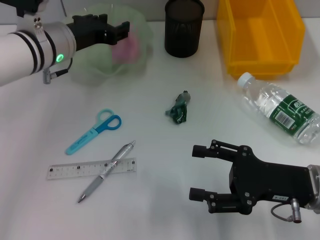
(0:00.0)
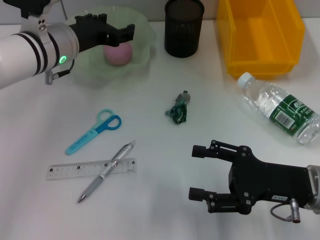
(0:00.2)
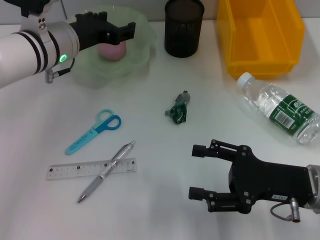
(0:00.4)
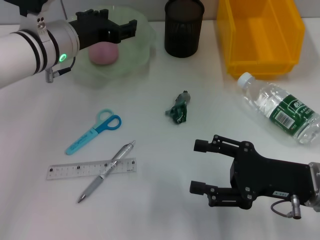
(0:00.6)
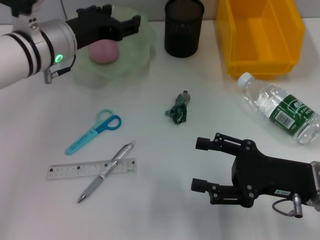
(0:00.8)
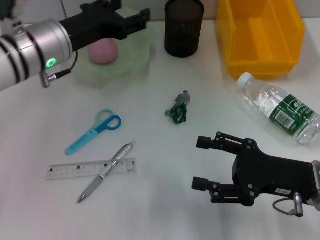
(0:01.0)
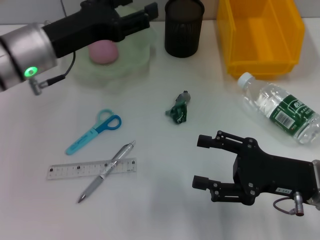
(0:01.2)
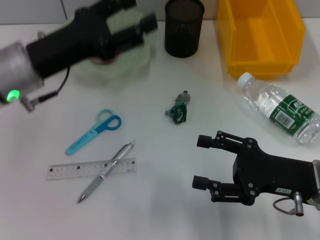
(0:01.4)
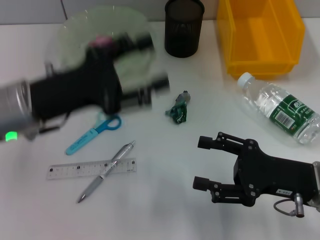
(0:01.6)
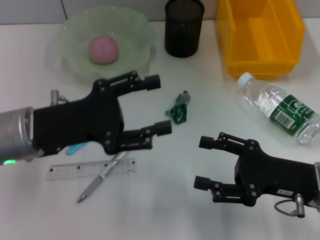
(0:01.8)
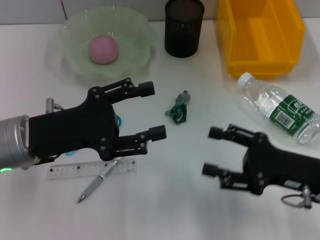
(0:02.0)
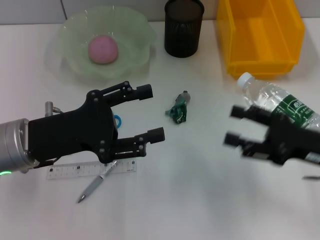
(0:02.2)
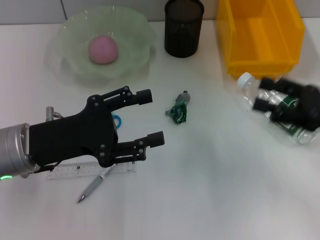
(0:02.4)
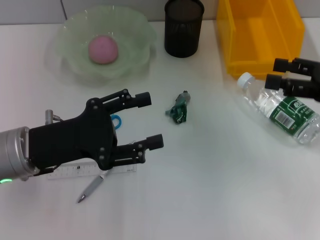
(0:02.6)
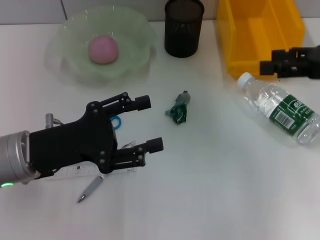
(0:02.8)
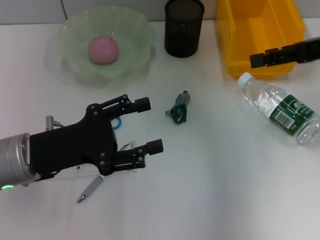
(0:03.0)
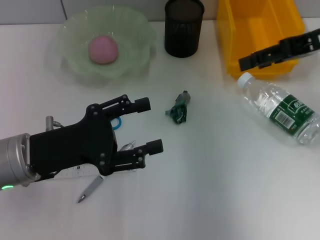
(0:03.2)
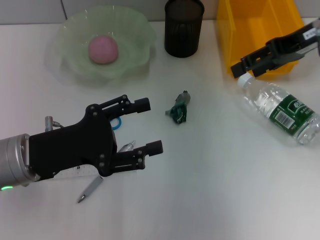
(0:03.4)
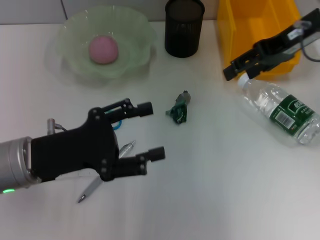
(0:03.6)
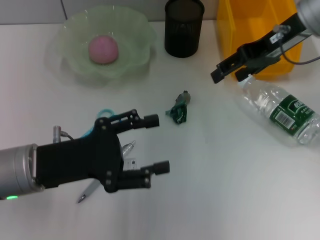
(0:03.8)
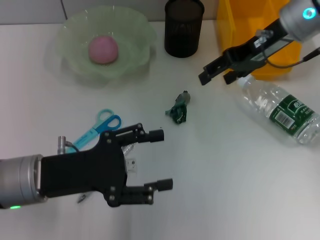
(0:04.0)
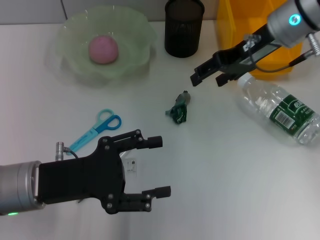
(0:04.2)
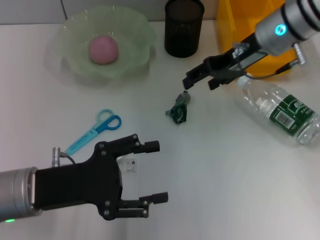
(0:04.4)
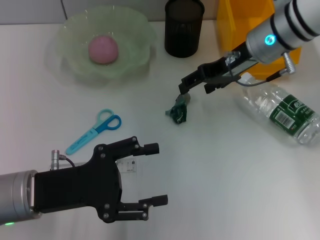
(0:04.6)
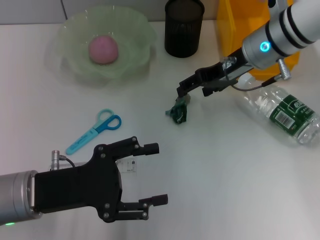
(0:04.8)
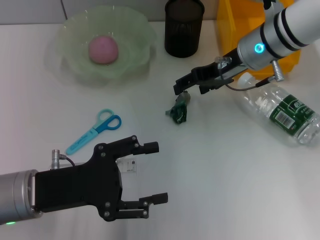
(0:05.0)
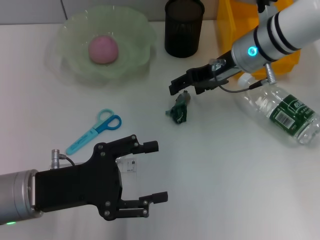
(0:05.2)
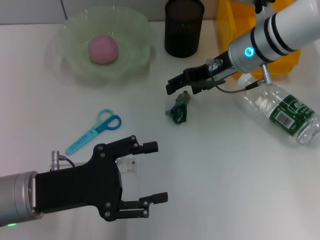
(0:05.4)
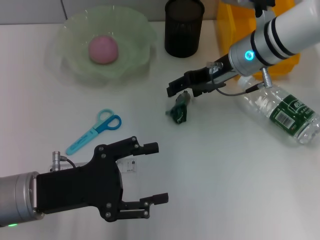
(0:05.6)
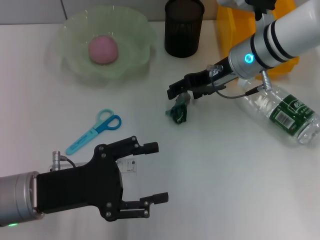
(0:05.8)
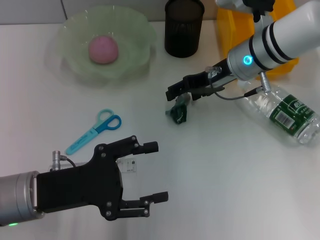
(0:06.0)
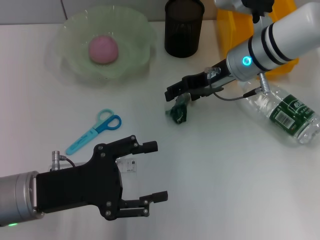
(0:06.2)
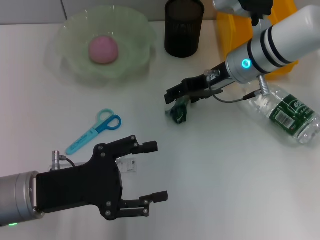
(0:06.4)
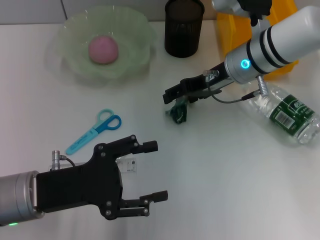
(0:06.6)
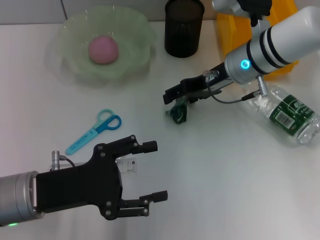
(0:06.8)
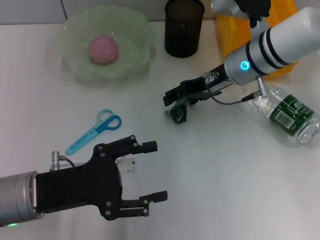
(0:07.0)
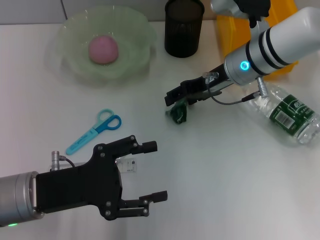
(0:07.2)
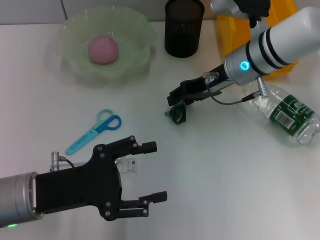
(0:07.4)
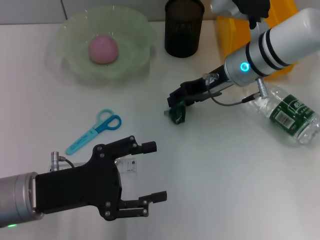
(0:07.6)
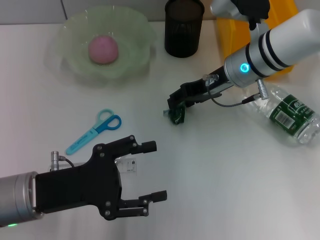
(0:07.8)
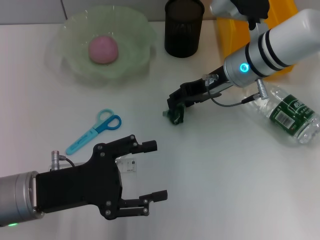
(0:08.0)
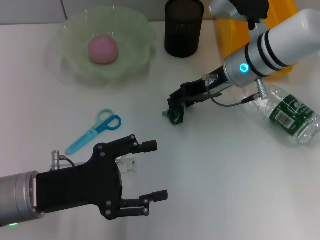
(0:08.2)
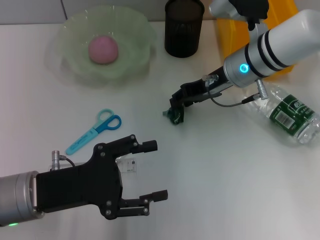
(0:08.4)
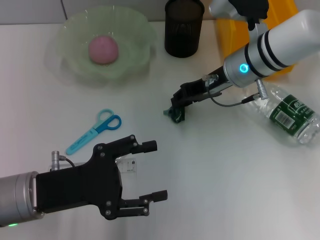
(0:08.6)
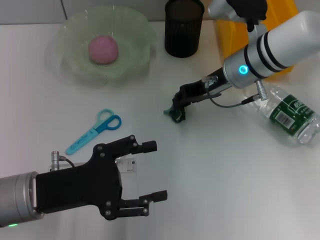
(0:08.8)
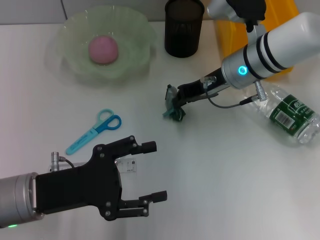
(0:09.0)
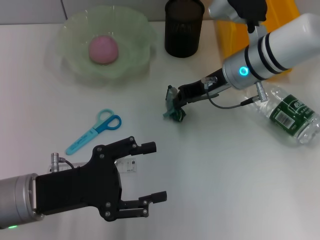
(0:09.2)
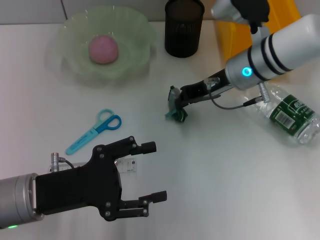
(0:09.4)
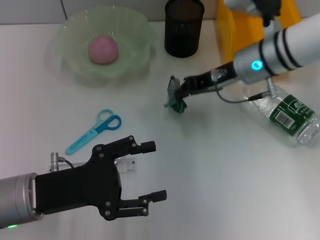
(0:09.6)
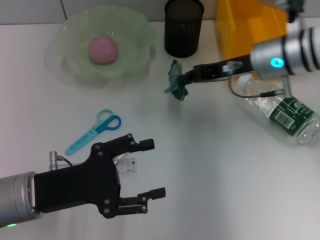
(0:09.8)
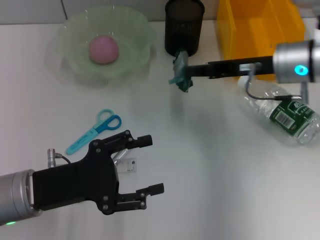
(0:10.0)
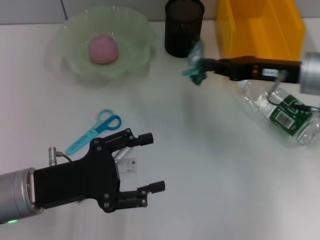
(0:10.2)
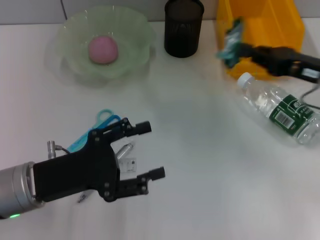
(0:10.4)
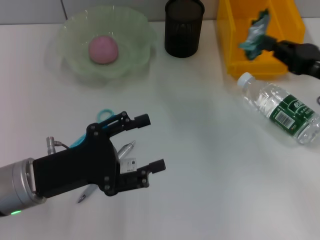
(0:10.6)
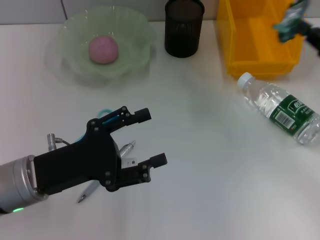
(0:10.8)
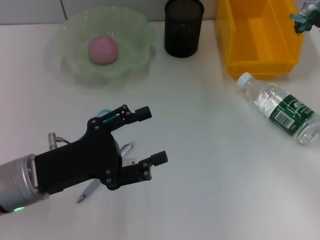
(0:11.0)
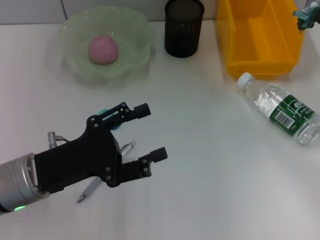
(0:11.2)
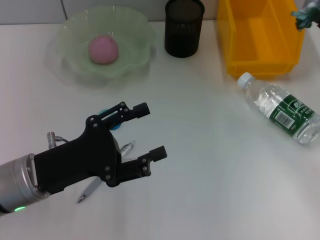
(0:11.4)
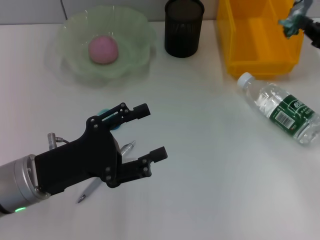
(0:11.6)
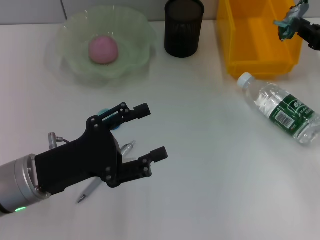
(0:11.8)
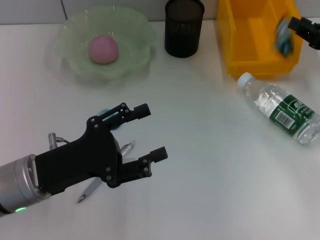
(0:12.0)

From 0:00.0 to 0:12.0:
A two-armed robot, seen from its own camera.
Step, from 0:00.6 to 0:09.0: Grab the plastic with the right hand.
From 0:00.0 to 0:01.6: The left gripper shifts about 10 cm backward, and opens up.
From 0:01.6 to 0:03.0: The left gripper moves about 5 cm, while the right gripper heads upward and forward, covering approximately 20 cm.
From 0:03.0 to 0:04.4: The right gripper goes roughly 15 cm to the left and forward.
From 0:04.4 to 0:06.0: The right gripper moves about 5 cm.
From 0:06.0 to 0:07.6: The right gripper closes its fingers.
From 0:07.6 to 0:09.0: The right gripper closes.
From 0:09.0 to 0:10.4: The right gripper is displaced to the right and backward by some 15 cm.
From 0:10.4 to 0:12.0: The right gripper moves to the right, some 5 cm.

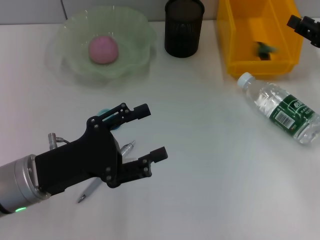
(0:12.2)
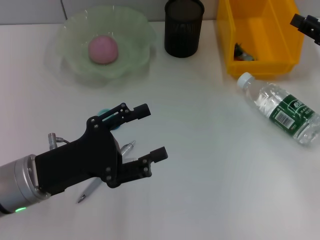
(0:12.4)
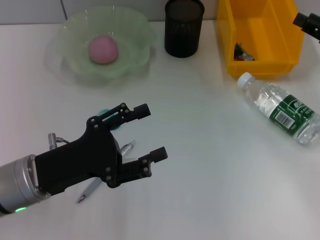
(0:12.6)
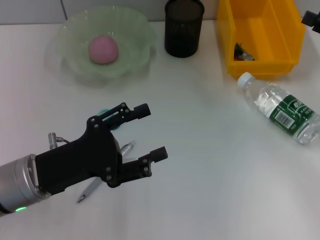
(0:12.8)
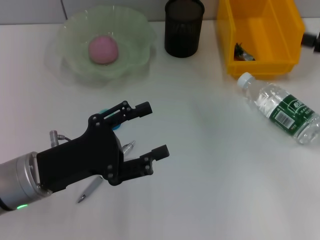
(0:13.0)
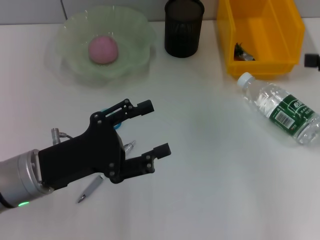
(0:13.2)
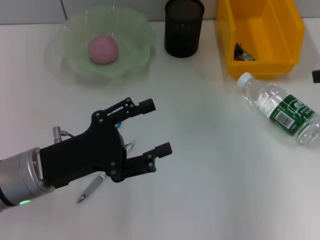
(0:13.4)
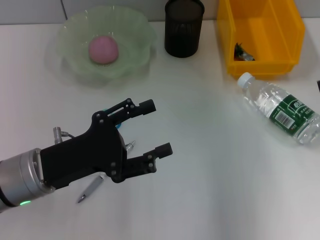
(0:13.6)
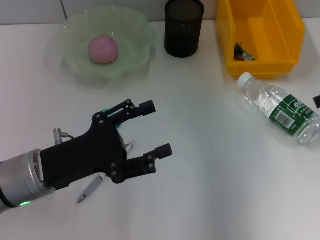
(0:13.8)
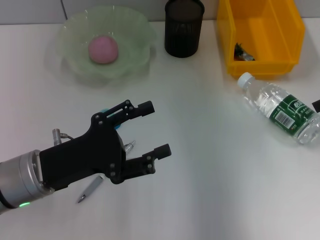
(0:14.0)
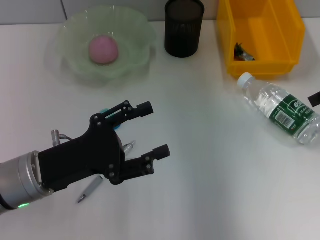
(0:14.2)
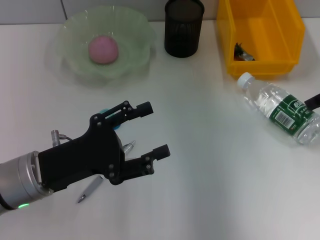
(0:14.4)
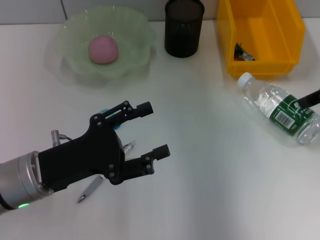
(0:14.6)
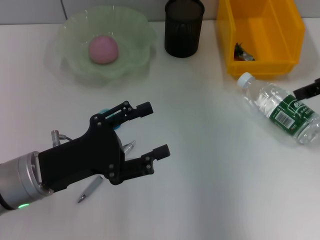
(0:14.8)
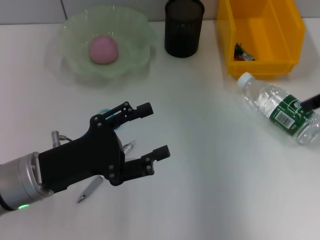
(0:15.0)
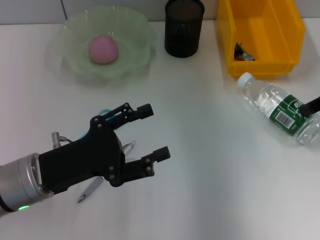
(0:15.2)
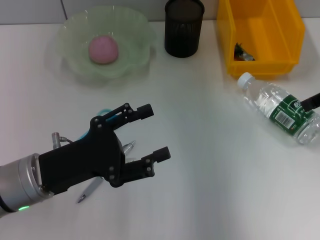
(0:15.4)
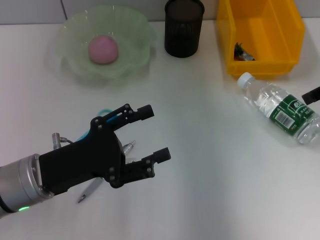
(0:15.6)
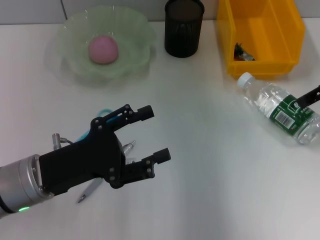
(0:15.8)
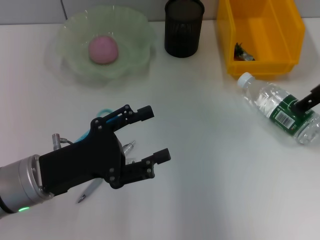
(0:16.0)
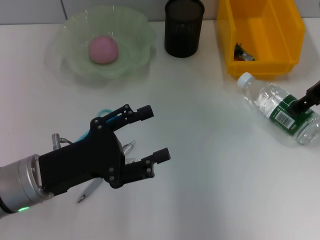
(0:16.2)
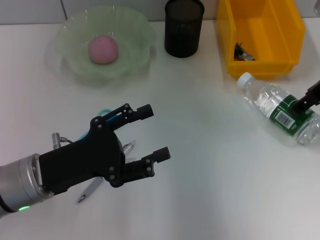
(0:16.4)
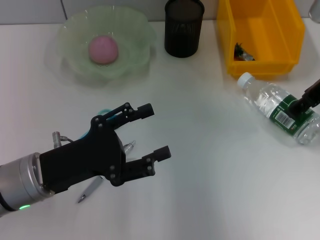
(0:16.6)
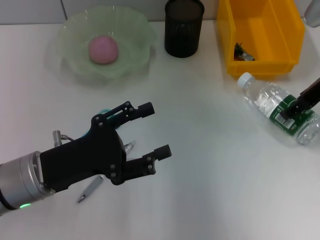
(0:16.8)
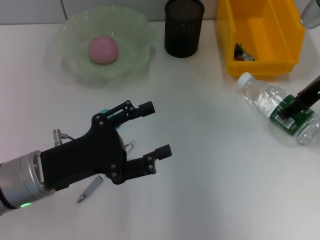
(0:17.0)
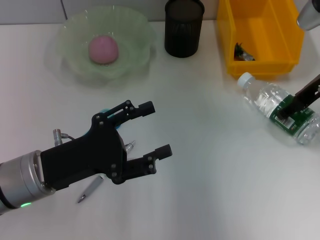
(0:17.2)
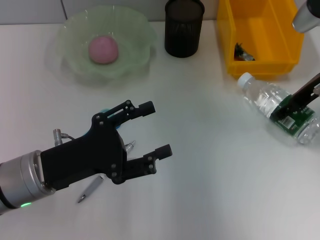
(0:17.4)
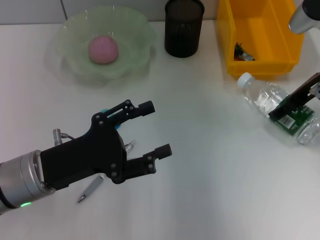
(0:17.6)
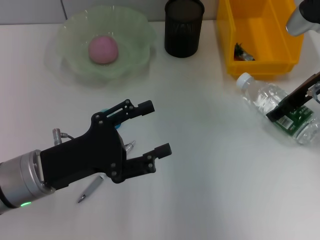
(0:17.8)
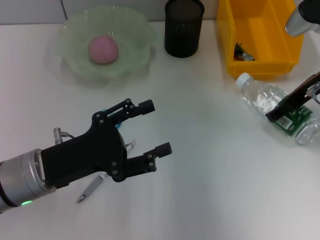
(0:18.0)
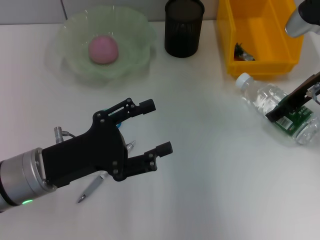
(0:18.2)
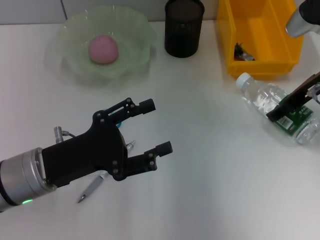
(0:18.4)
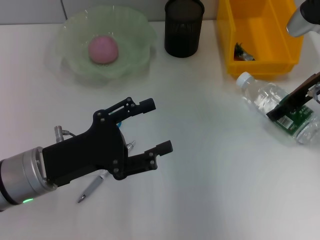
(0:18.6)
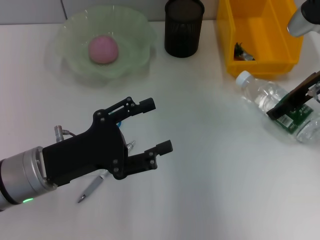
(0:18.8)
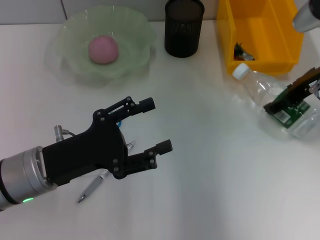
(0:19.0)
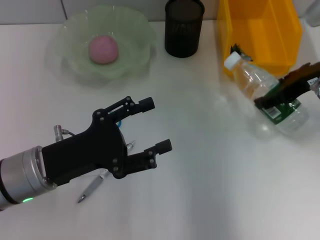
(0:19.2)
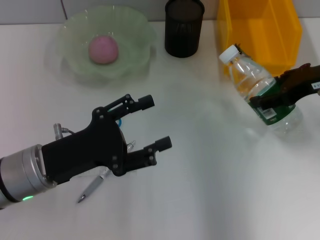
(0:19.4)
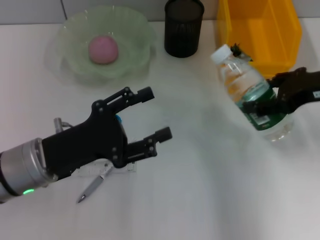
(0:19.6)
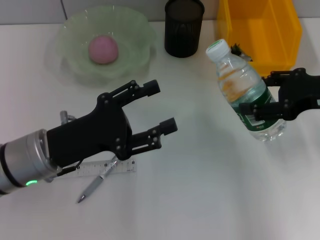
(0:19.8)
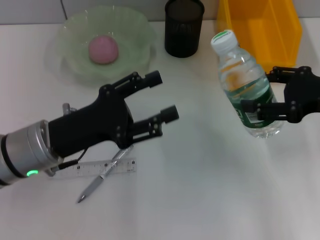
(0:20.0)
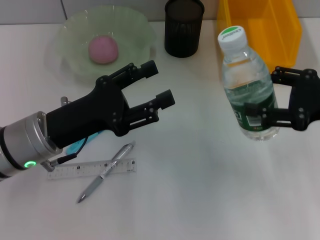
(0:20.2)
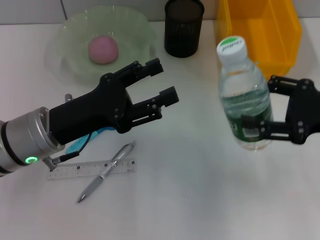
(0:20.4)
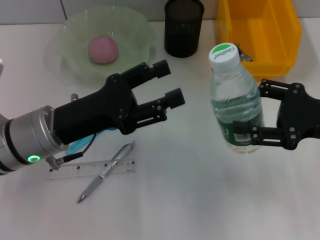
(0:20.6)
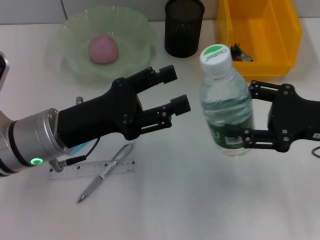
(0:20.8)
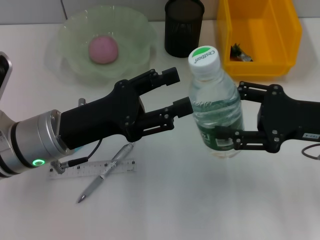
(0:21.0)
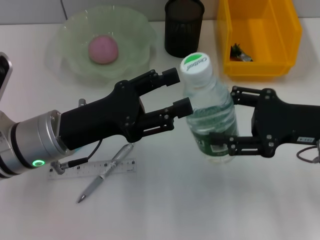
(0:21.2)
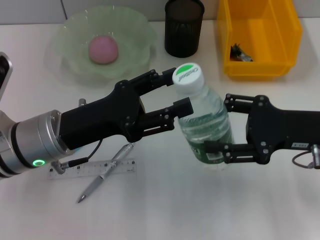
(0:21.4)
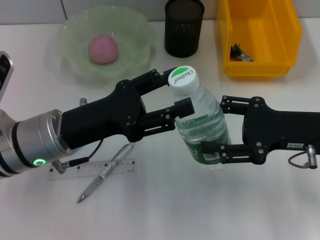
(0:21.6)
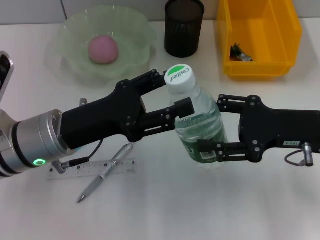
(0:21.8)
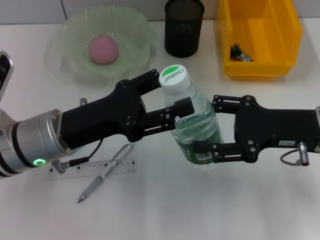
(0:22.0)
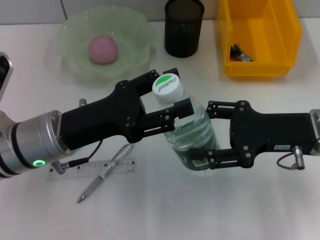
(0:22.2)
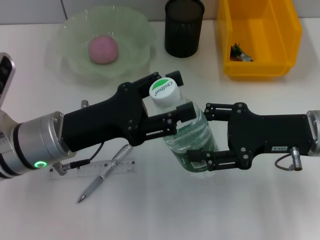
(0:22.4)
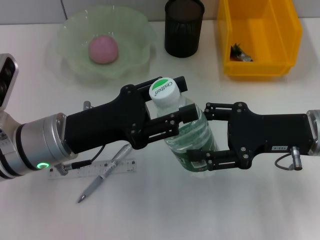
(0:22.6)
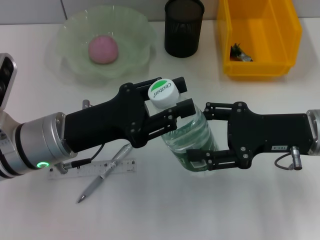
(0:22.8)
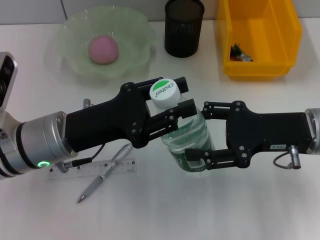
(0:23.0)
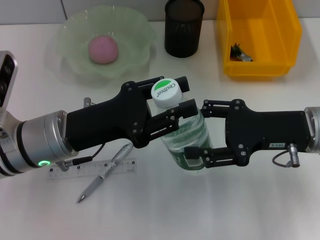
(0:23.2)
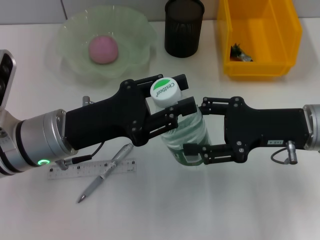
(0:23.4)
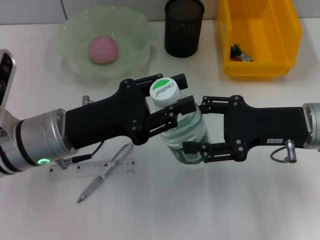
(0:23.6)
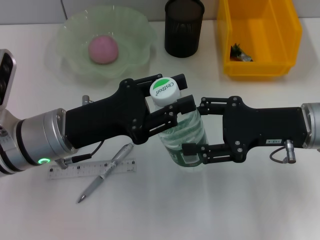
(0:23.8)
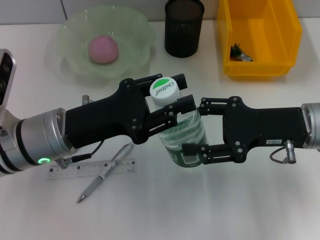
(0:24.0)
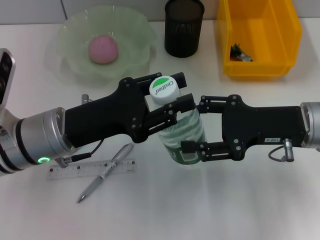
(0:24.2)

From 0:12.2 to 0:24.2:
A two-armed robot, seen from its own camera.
Step, from 0:12.6 to 0:17.4: Grab the water bottle with the right hand.
From 0:12.2 to 0:13.8: The right gripper shifts approximately 10 cm upward, and opens.
From 0:13.8 to 0:15.2: The grippers make only small movements.
From 0:15.2 to 0:16.6: The right gripper ends up about 5 cm from where it was.
From 0:16.6 to 0:18.2: The grippers move only a little.
From 0:18.2 to 0:19.8: The right gripper heads backward, covering some 10 cm.
From 0:19.8 to 0:21.2: The right gripper ends up about 5 cm from where it was.
From 0:21.2 to 0:22.6: There are only small adjustments of the grippers.
From 0:22.6 to 0:24.2: The two grippers keep their place.
